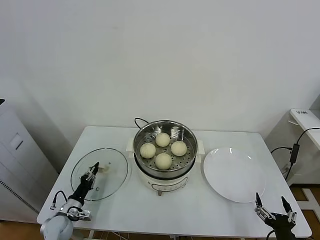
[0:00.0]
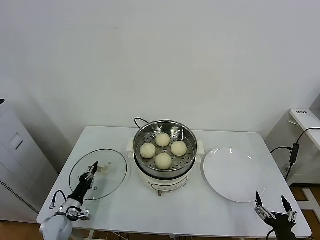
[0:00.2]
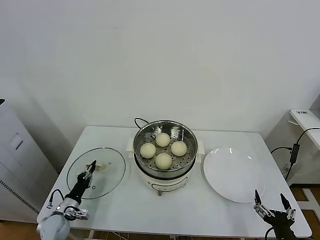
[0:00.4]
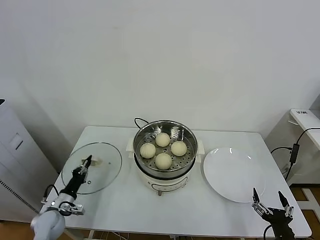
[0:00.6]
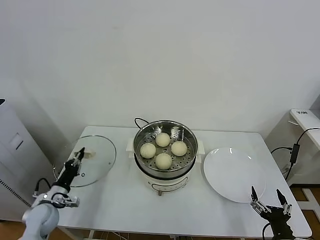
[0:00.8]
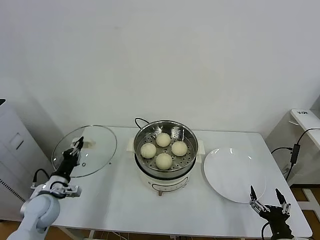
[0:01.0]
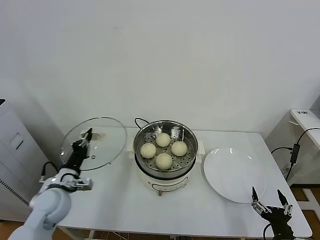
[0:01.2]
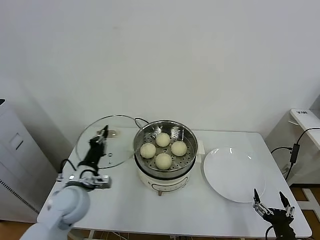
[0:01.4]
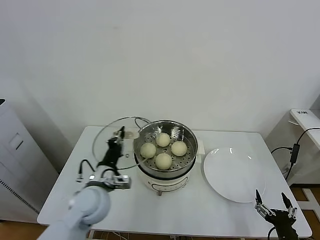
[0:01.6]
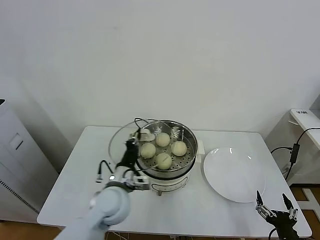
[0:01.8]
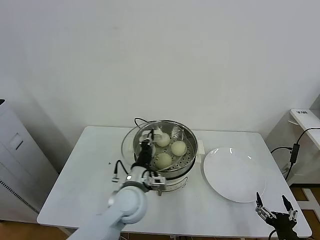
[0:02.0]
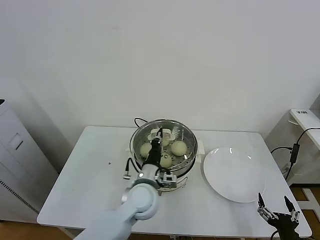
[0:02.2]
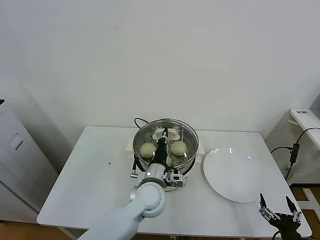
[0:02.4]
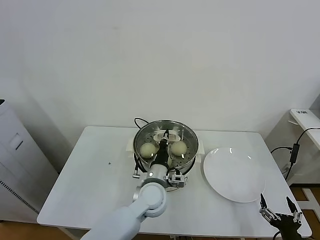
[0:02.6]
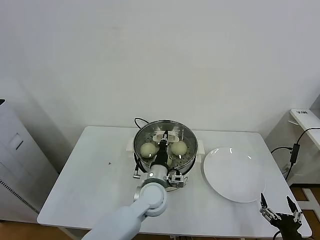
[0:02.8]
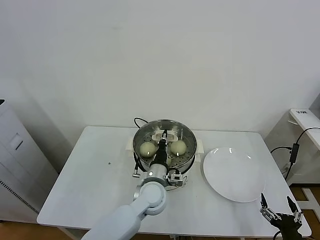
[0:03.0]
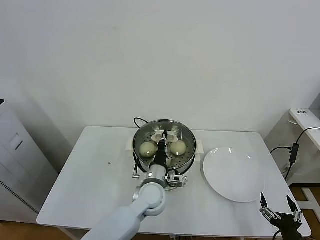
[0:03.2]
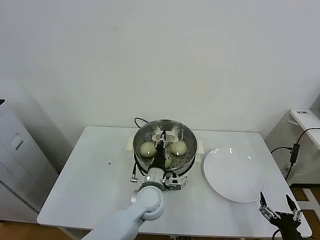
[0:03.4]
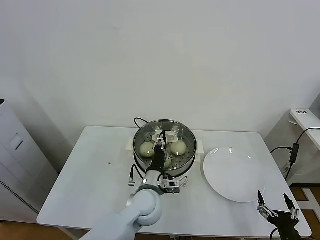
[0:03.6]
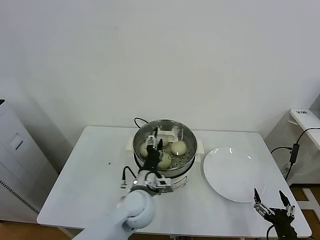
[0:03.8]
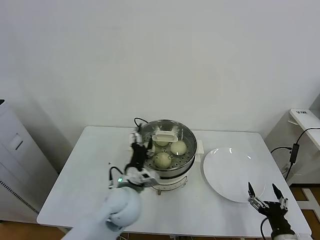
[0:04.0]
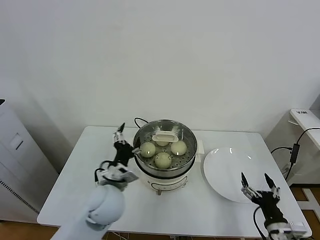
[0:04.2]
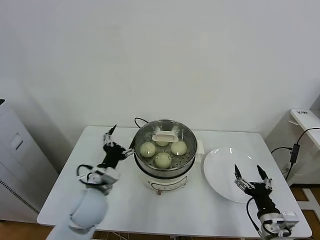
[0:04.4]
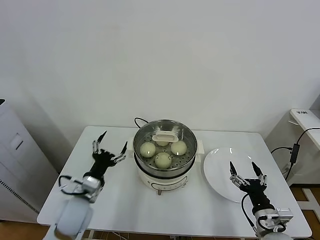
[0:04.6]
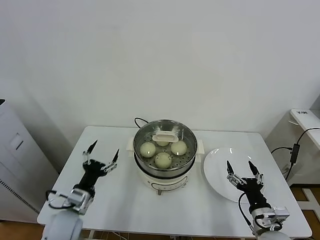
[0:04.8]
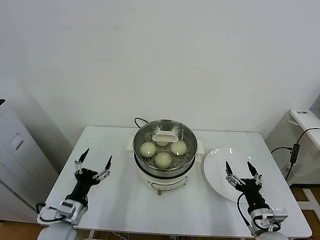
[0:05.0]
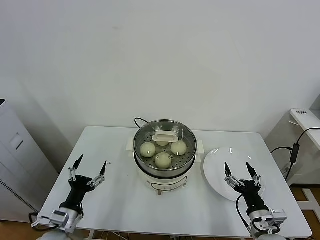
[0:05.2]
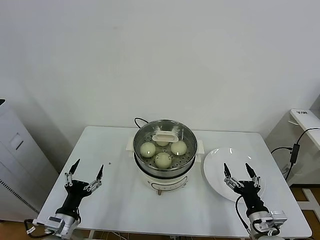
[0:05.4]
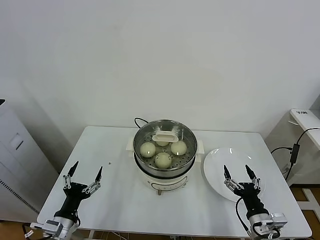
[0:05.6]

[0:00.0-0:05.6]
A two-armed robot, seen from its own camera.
Task of the whole recording: take steamed baozi put them in steamer.
Step, 0:00.4 to 0:03.6: Place the pot lid on the steamer with left gripper.
0:00.0 to 0:01.4: The left gripper goes roughly 25 cm upward and to the right.
0:01.4 to 0:02.8: The left gripper moves to the right, approximately 25 cm.
0:02.8 to 0:04.2: The right gripper is displaced forward by approximately 5 cm, while the left gripper goes about 10 cm to the left and upward, and opens.
0:04.2 to 0:05.6: The right gripper changes place by some 5 cm. Meanwhile the left gripper travels to the left, downward and backward by roughly 25 cm.
